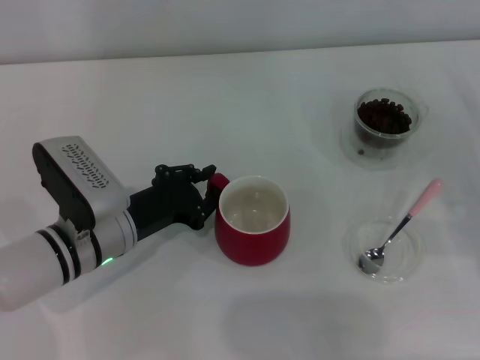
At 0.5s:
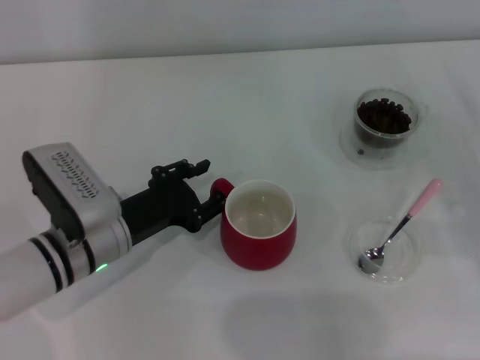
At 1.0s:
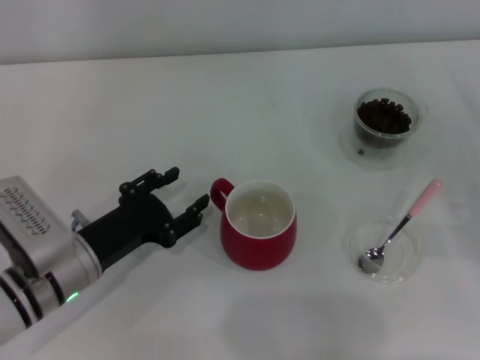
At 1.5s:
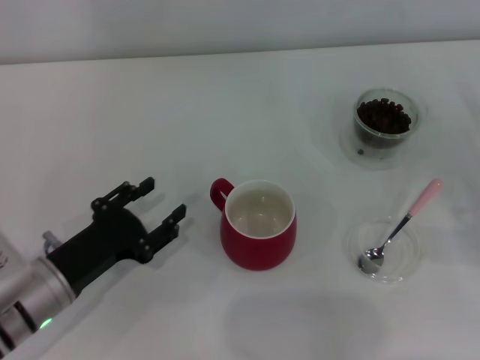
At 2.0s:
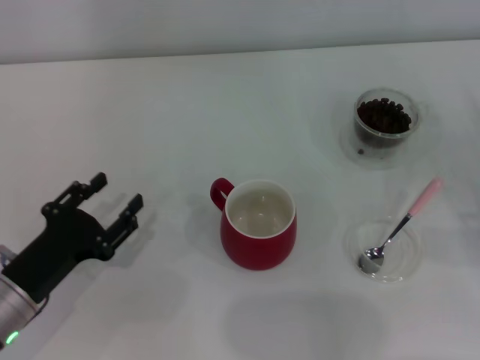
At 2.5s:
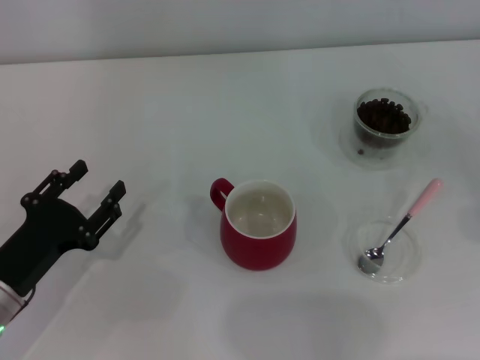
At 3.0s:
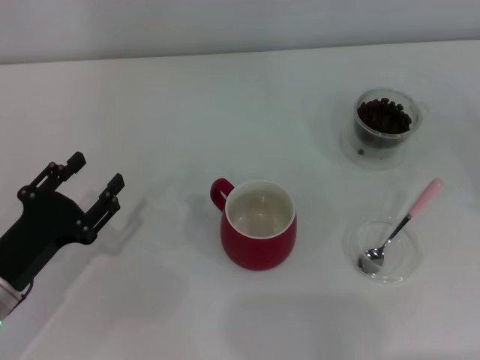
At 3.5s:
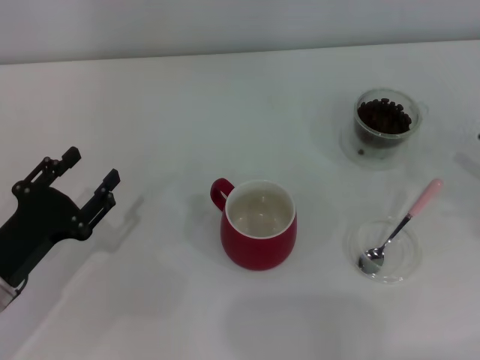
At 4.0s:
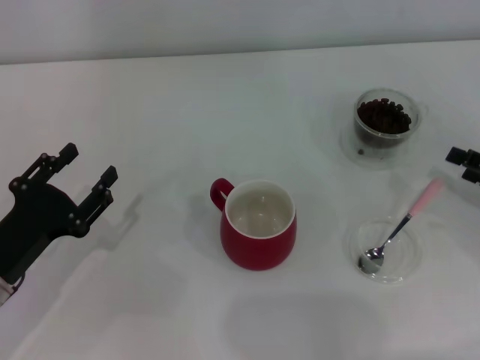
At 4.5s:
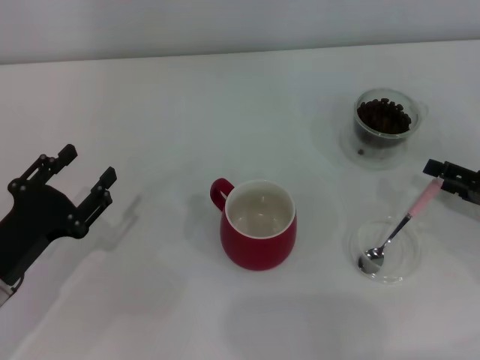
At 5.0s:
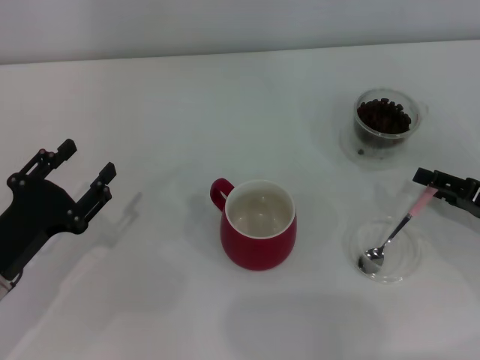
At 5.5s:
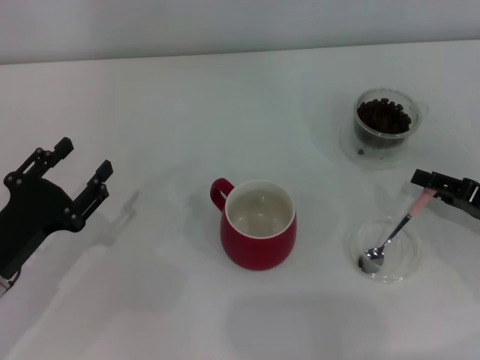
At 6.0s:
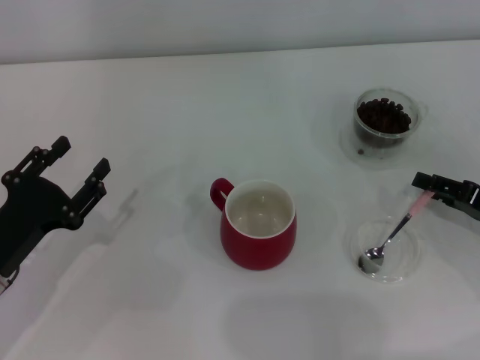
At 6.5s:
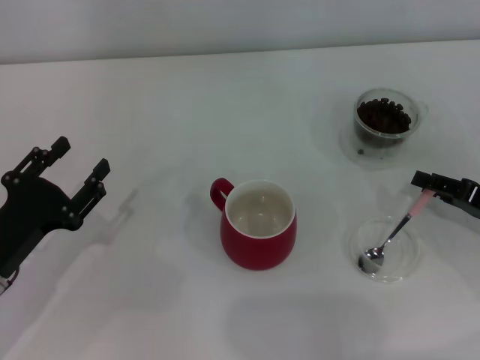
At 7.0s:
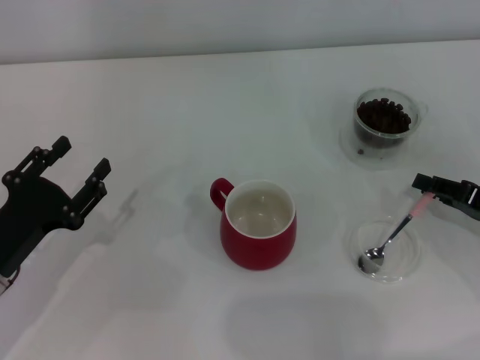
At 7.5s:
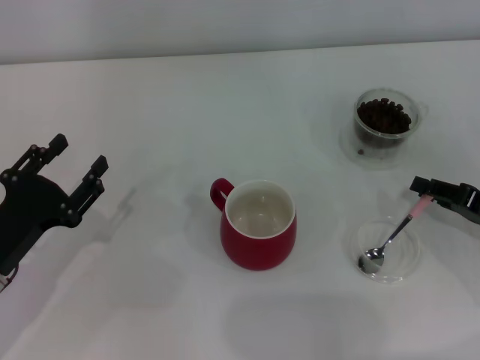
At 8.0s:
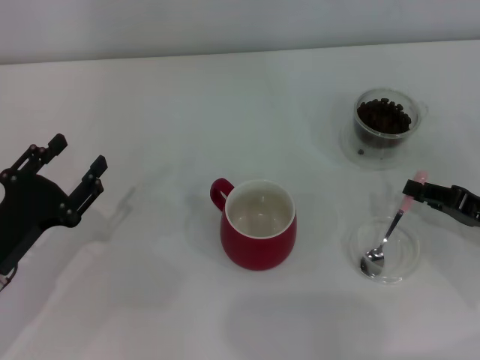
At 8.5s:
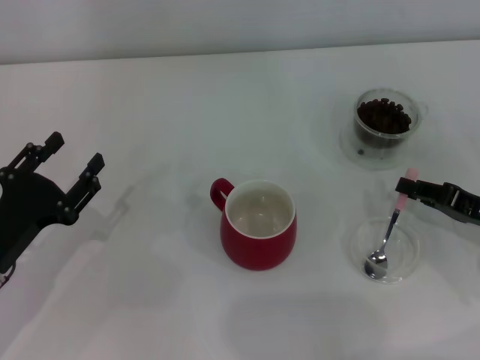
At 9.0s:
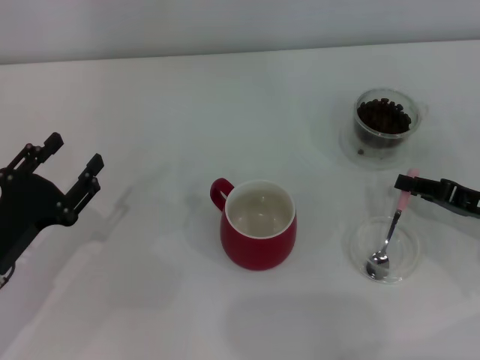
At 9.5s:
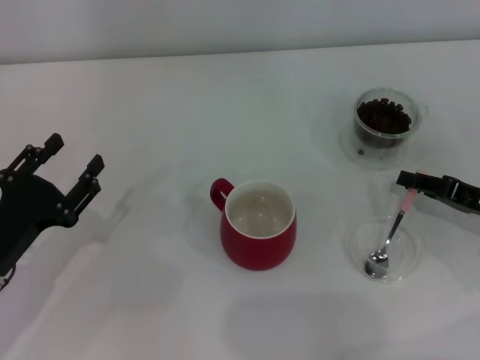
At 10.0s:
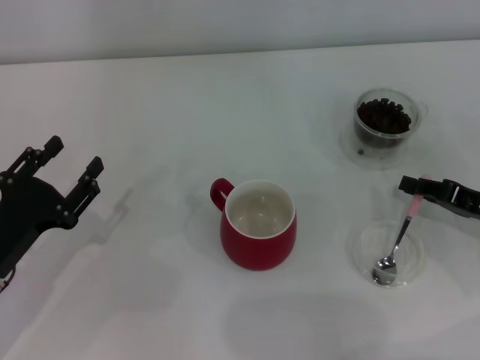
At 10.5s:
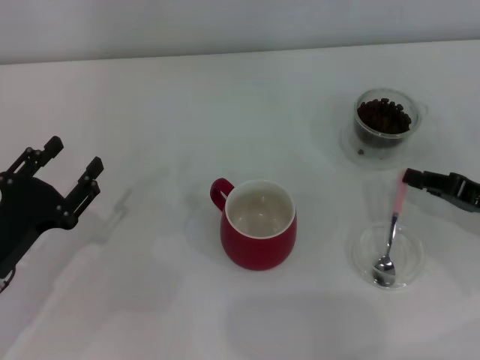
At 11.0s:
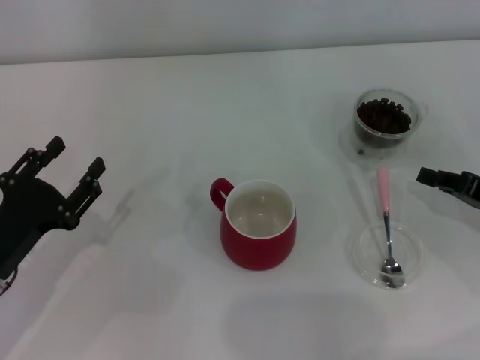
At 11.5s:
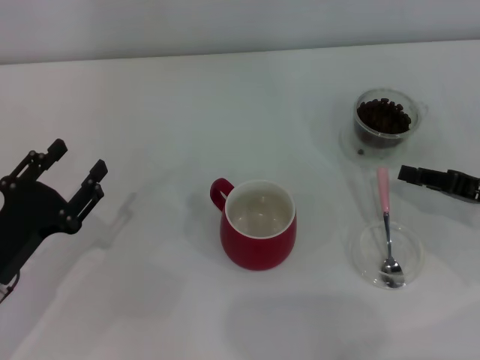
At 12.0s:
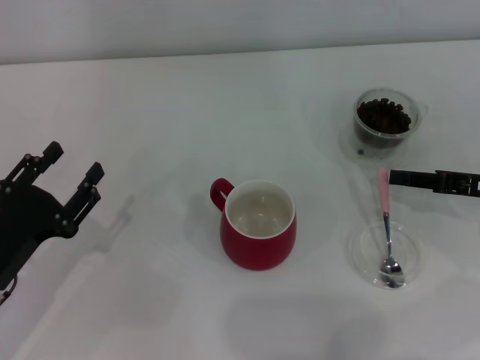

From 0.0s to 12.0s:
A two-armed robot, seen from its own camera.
Task of the whole recording: Use a pink spoon to take out the coffee beans from the glass and pour them into the red cup.
From 0.0s to 2.0s: The left gripper is displaced to the left and backward by some 10 cm, and opens up.
From 4.0s to 6.0s: The right gripper closes up.
From 6.0s to 8.0s: The right gripper closes.
From 8.0s to 12.0s: There are only small adjustments of the grippers.

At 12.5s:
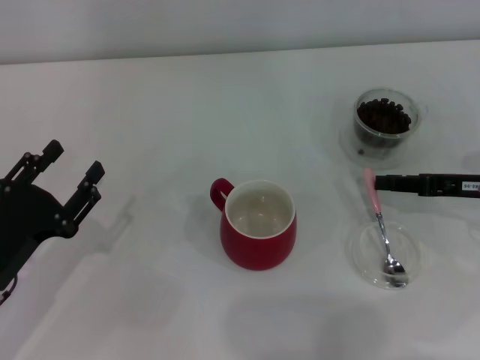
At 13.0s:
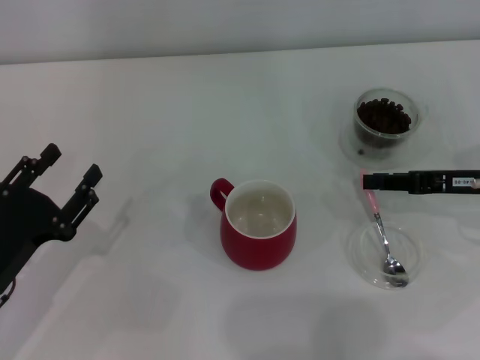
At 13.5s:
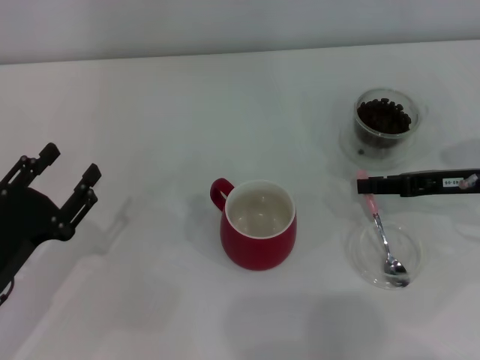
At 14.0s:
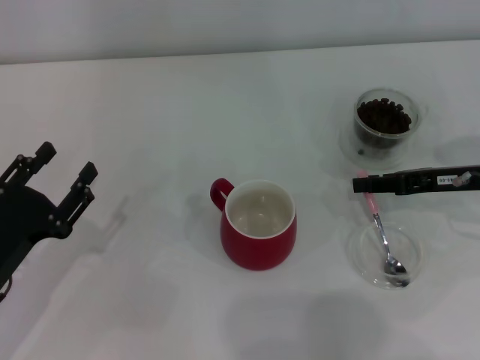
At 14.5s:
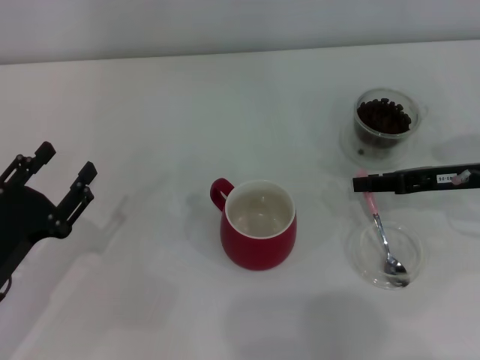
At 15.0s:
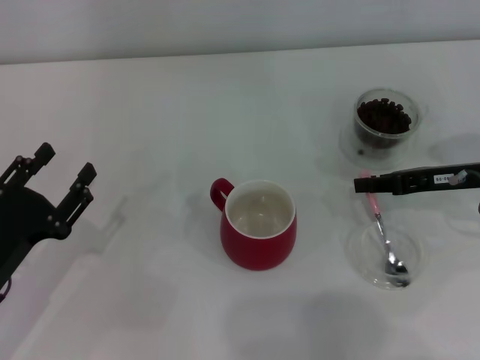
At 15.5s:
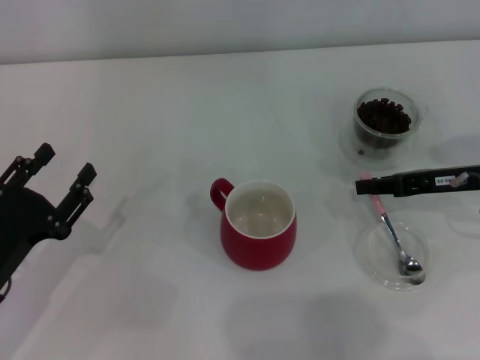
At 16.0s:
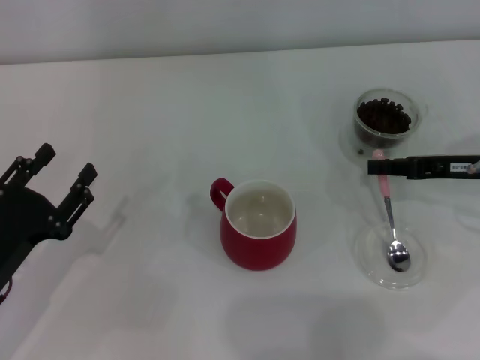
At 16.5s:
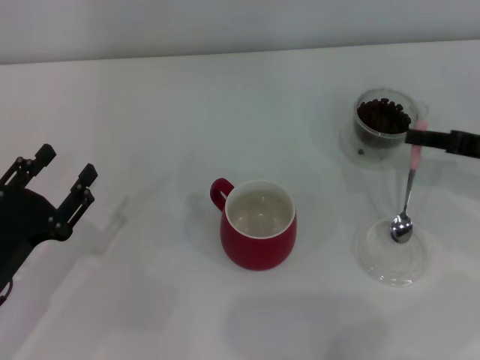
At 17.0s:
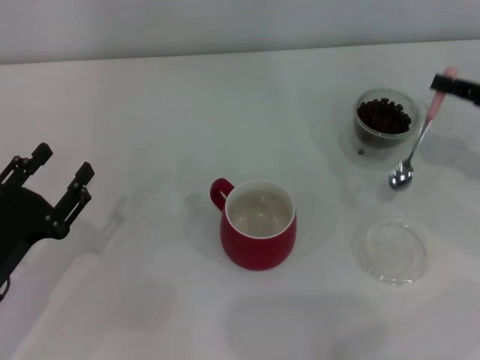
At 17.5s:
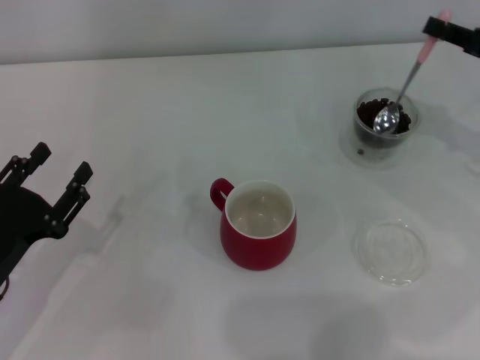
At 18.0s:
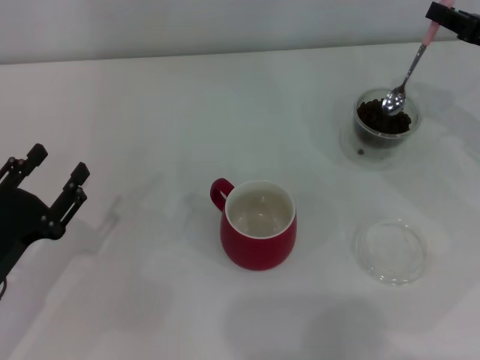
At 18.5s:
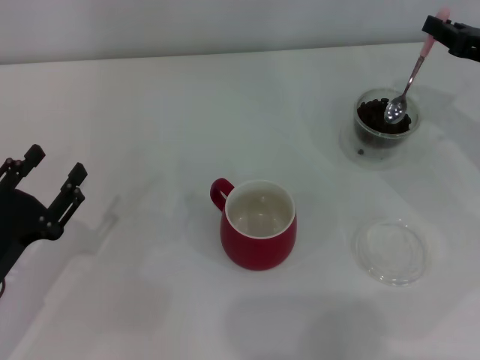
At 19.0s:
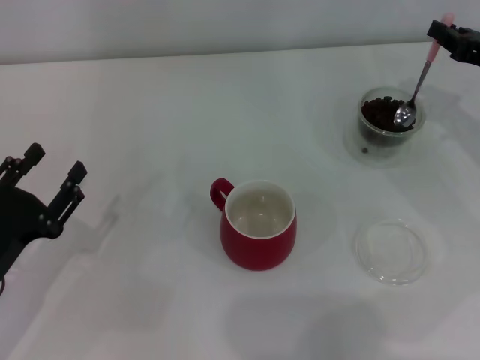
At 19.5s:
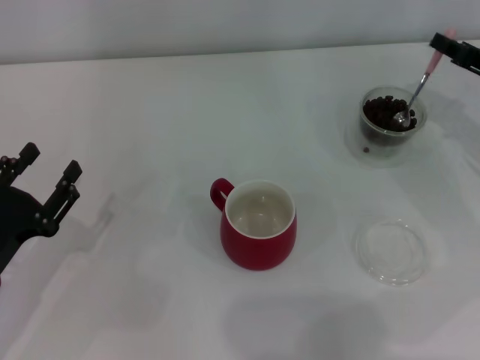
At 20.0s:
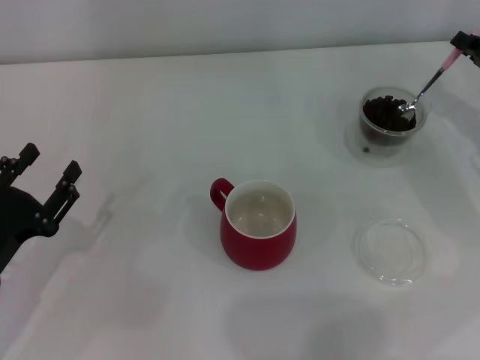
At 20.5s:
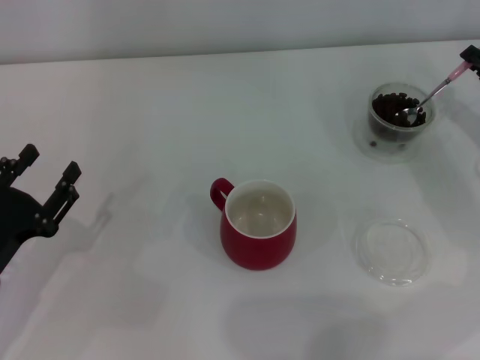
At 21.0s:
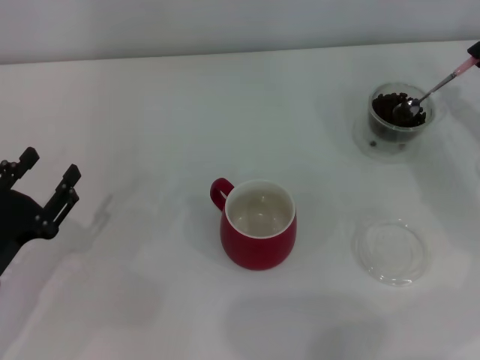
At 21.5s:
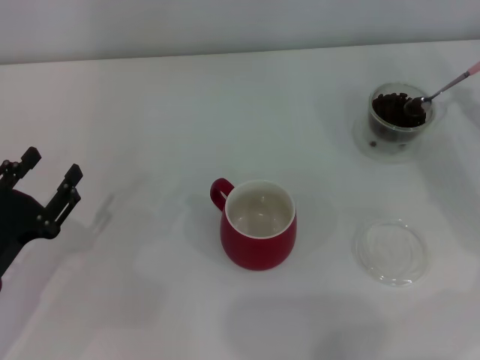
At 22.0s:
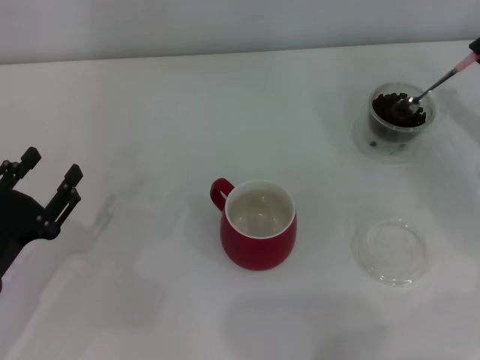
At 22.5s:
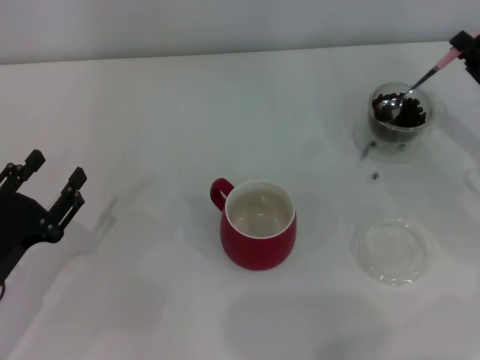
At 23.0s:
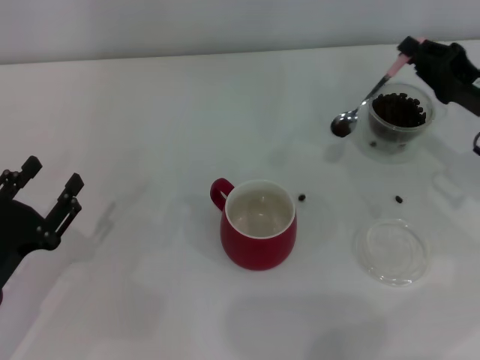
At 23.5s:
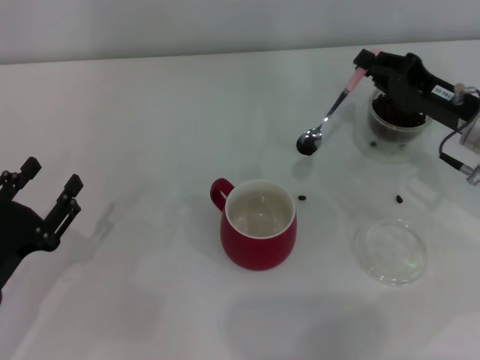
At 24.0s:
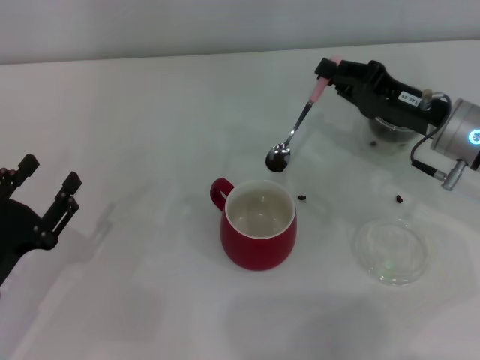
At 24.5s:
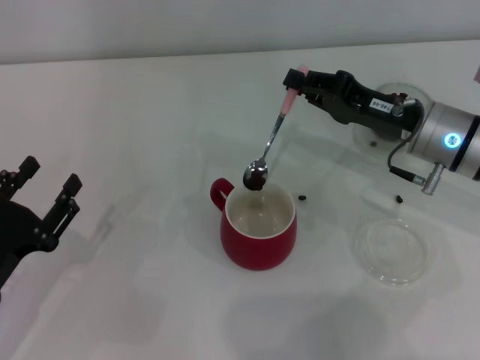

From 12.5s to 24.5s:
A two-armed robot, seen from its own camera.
Task of the whole recording: Use a pink spoon to take out the coffee beans from the glass and pour them into the red cup.
Step, from 12.5s to 16.5s: Pick up the spoon with the right gripper.
From 12.5s to 14.5s: The grippers move only a little.
From 14.5s to 16.5s: The right gripper ends up some 5 cm from where it was.
From 16.5s to 18.5s: The right gripper is displaced forward by about 5 cm.
From 18.5s to 20.5s: The right gripper ends up roughly 5 cm from where it was.
From 20.5s to 22.5s: The grippers stay close to where they were, moving slightly.
From 22.5s to 24.5s: The right gripper moves to the left, some 10 cm.

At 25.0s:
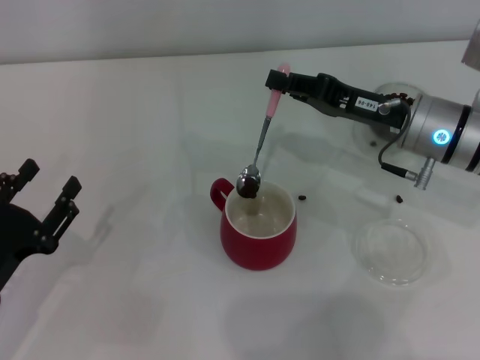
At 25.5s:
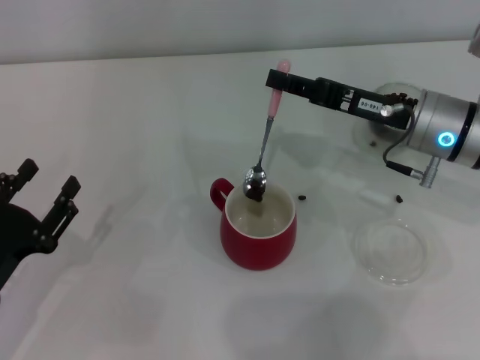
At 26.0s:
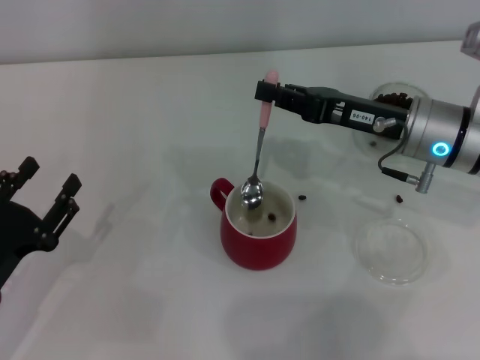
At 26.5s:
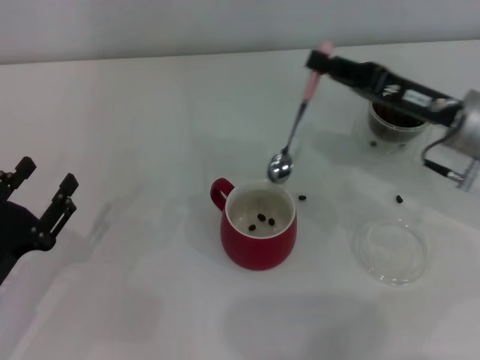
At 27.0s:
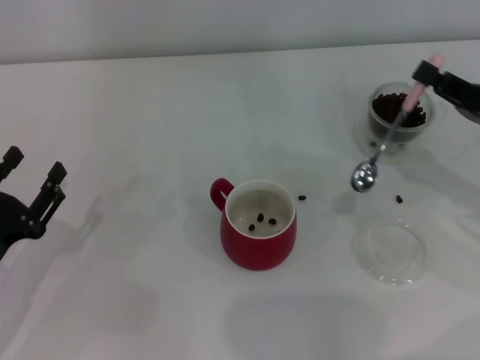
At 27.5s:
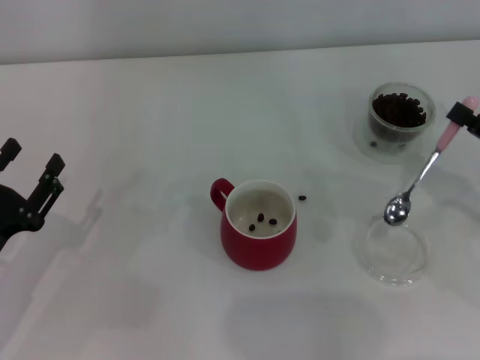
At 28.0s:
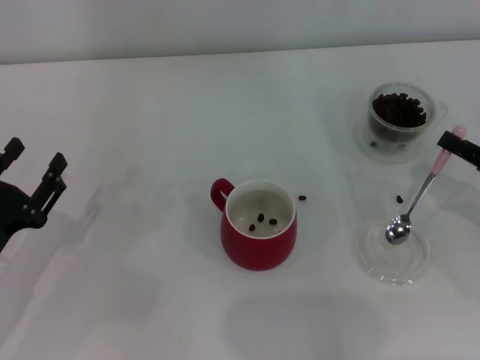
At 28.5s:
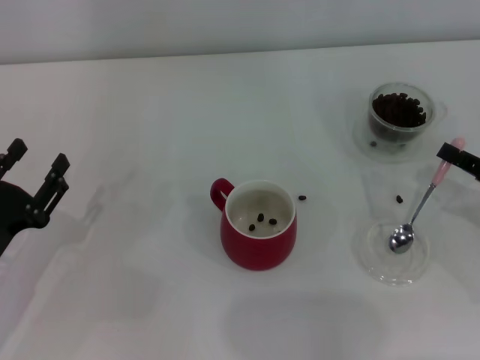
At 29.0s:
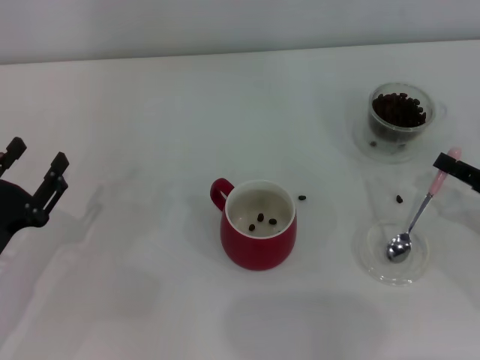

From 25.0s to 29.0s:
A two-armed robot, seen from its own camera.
Task of the whole recording: Use a pink spoon to take out the coffee beans from the glass and pour them into the red cup.
From 25.0s to 27.0s: The right gripper shifts approximately 15 cm to the right and backward.
From 27.0s to 29.0s: The right gripper is displaced downward by approximately 5 cm.
